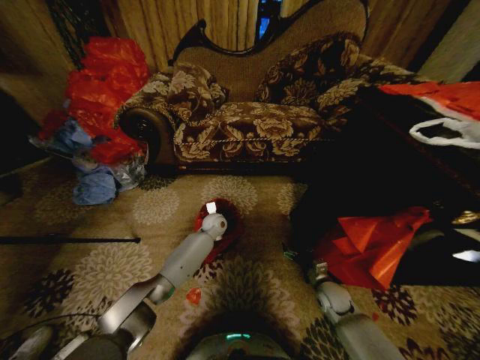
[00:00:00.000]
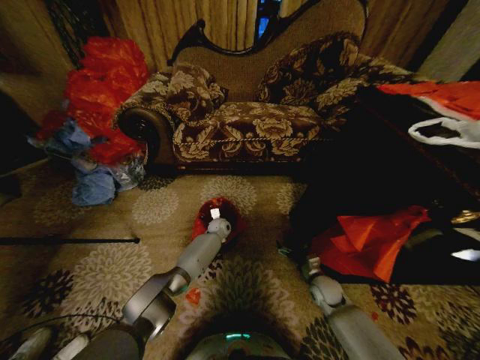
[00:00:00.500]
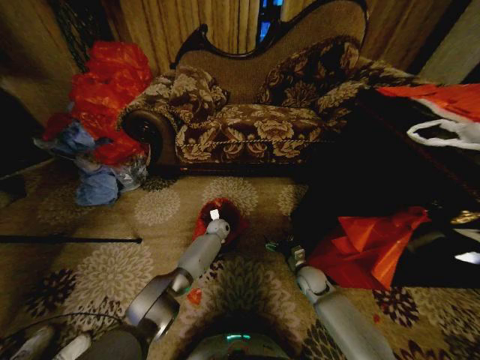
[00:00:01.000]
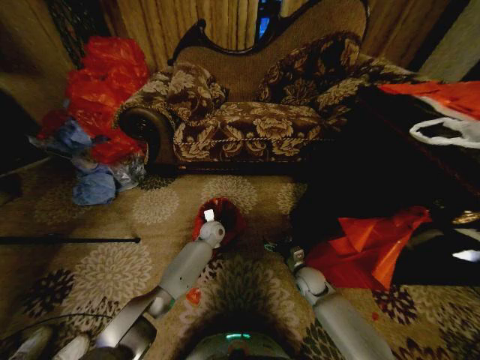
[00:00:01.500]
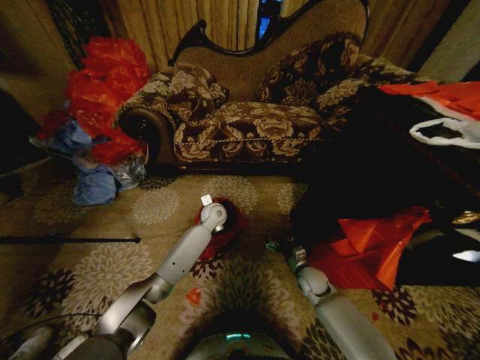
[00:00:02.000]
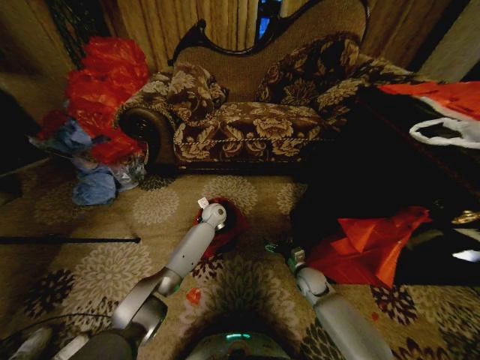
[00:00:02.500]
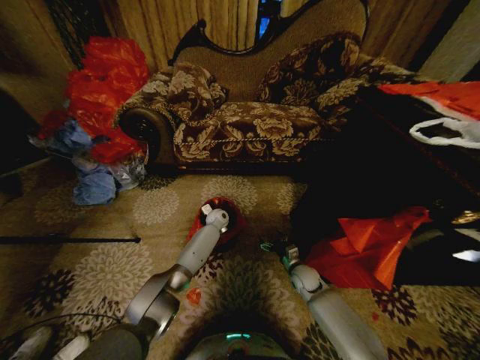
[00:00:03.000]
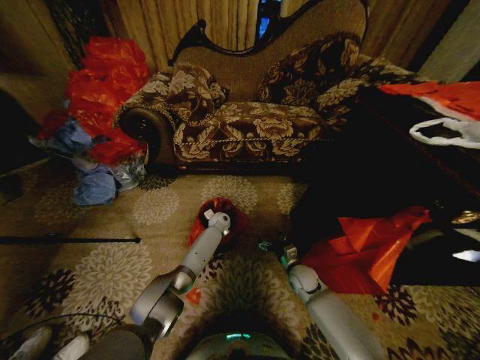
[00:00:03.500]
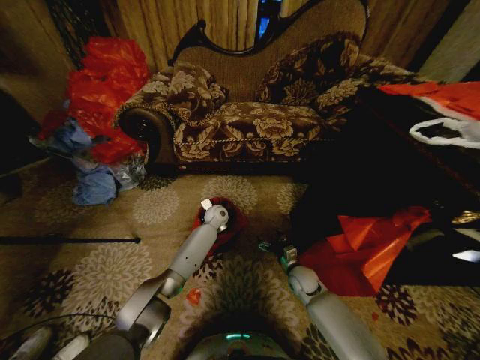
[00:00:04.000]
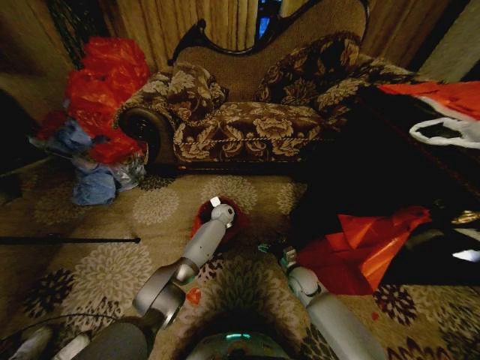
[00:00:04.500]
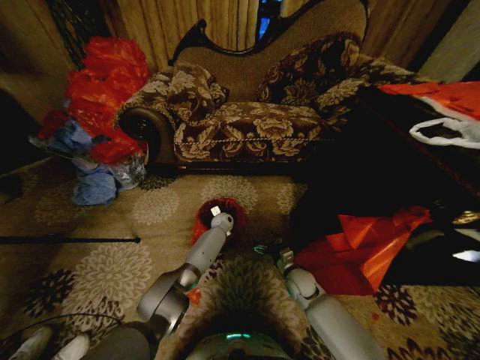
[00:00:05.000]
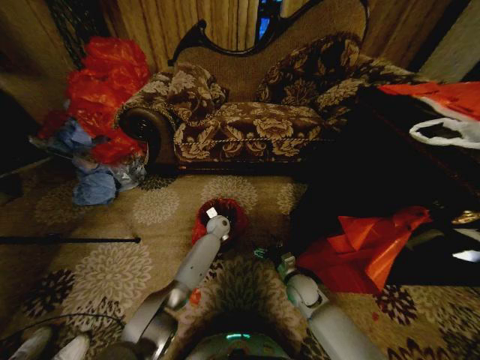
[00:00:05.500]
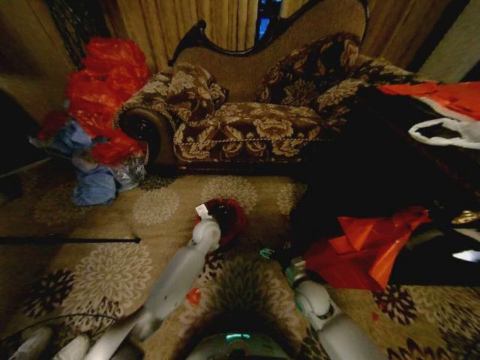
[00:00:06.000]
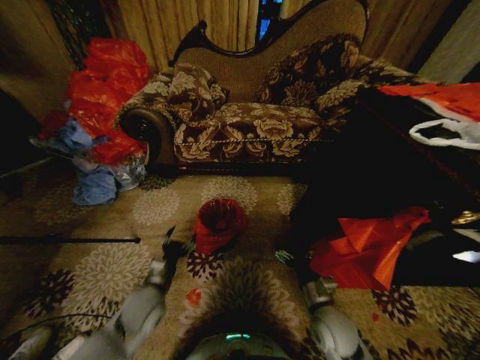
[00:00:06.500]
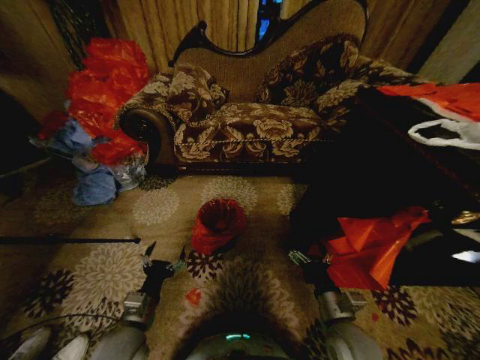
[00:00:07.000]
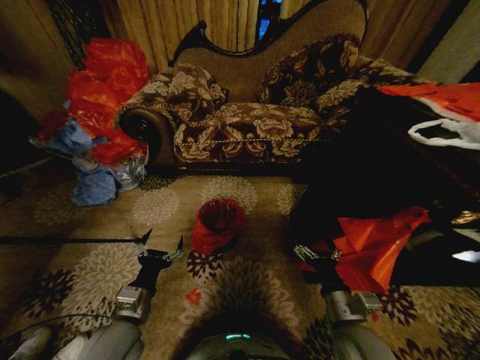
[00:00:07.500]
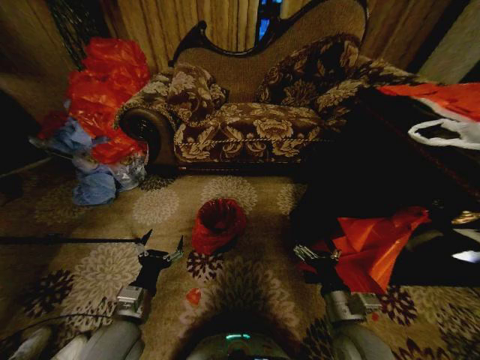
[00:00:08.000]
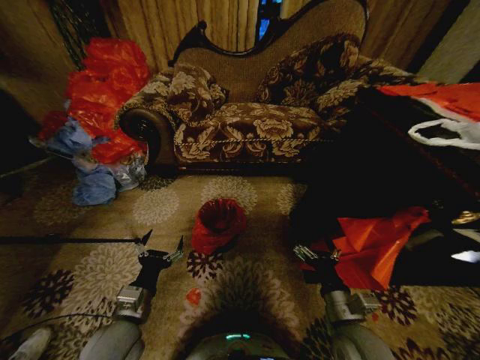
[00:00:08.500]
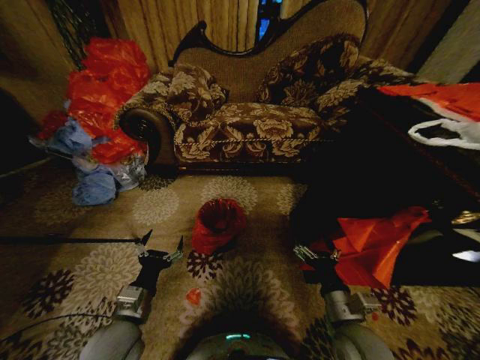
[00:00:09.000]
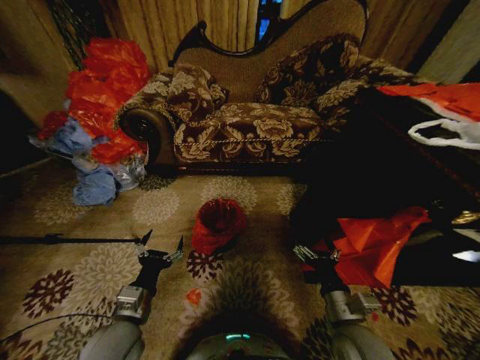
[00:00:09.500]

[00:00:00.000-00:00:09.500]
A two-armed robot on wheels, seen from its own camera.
Task of the whole recording: Place a garbage bag over the trash bin.
00:00:00.000 to 00:00:02.000: The left gripper heads upward, covering some 5 cm; the right gripper travels to the left by about 5 cm.
00:00:05.500 to 00:00:07.500: The right gripper goes some 20 cm backward and upward; the left gripper heads backward, covering some 40 cm, and opens its fingers.
00:00:07.500 to 00:00:09.500: Both grippers stay put.
